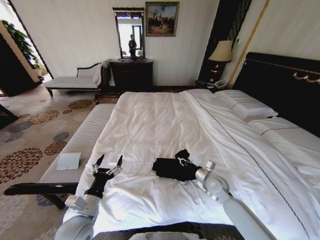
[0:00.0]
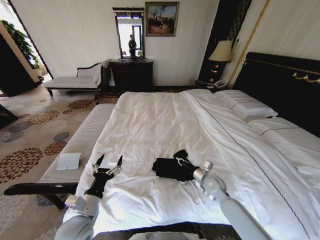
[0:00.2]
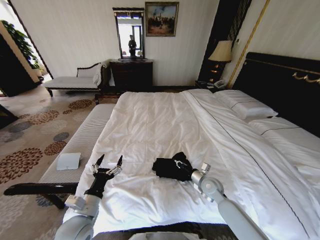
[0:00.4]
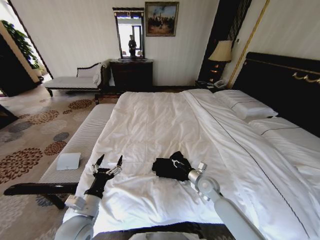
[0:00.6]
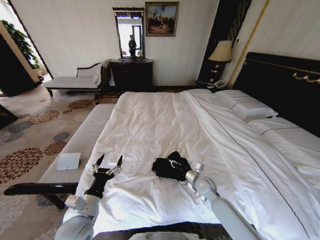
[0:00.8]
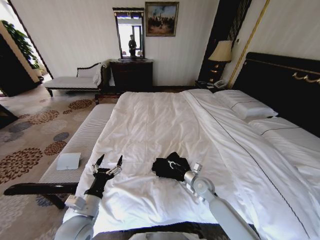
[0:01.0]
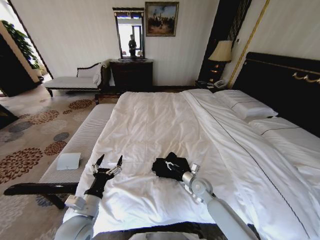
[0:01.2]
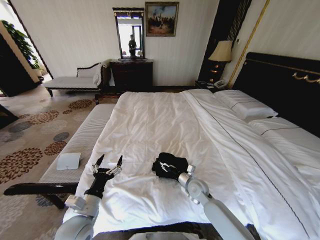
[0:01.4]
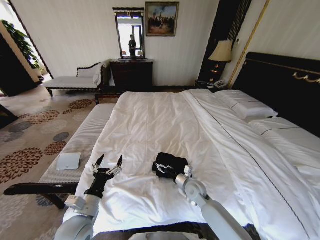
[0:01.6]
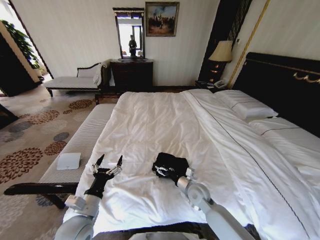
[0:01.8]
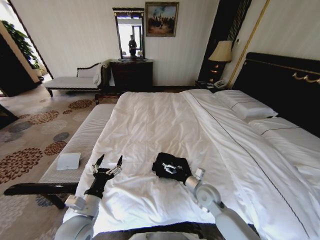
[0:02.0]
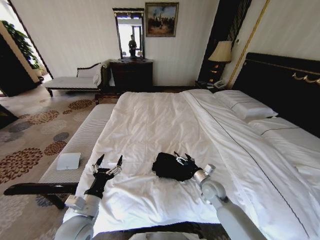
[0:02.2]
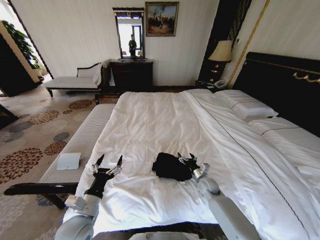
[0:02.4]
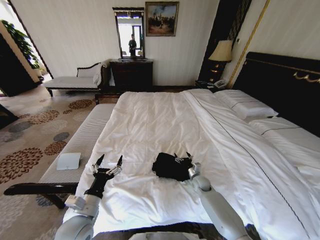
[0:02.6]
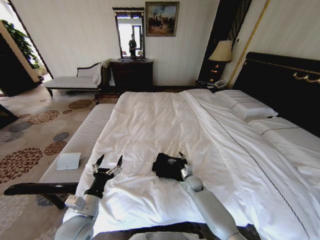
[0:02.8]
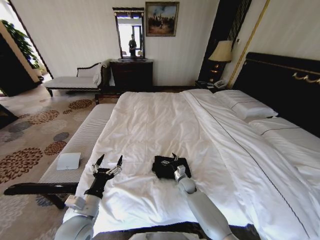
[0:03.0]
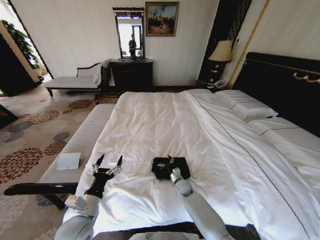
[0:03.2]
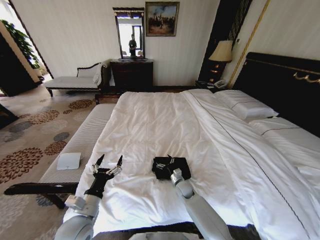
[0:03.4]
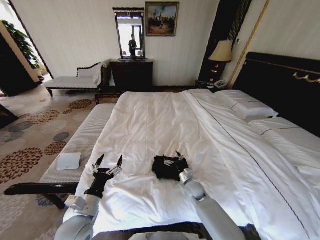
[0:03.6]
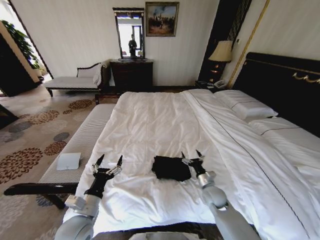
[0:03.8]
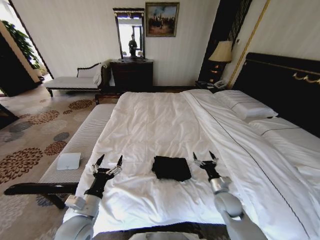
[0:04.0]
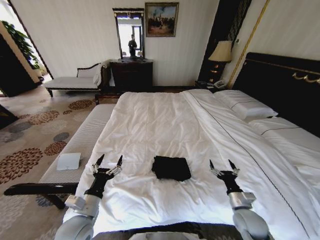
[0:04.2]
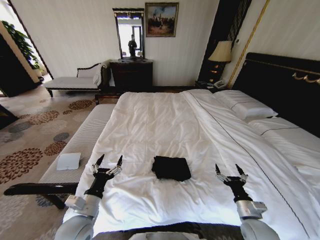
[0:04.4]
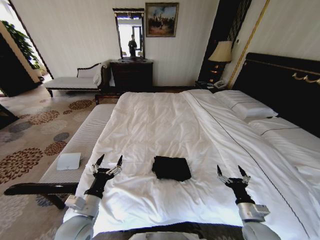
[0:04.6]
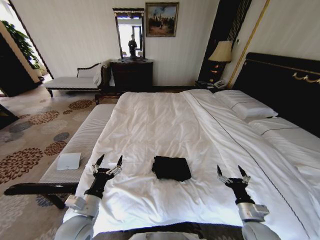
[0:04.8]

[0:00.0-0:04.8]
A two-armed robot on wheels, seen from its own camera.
Task of the whole recording: Fold the clothes on the bed.
0:00.0 to 0:01.6: The right gripper is displaced to the left by about 10 cm, and opens.
0:01.6 to 0:03.2: The right gripper shifts some 10 cm downward.
0:03.2 to 0:04.8: The right gripper travels backward, to the right and upward by roughly 30 cm.

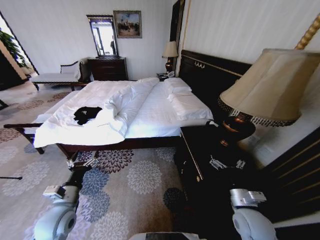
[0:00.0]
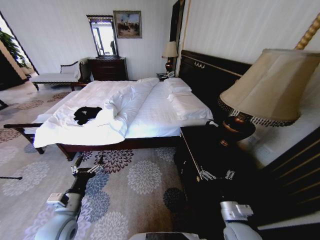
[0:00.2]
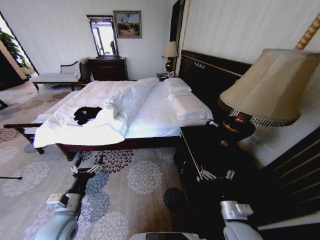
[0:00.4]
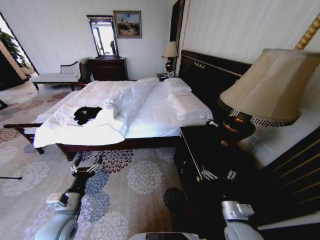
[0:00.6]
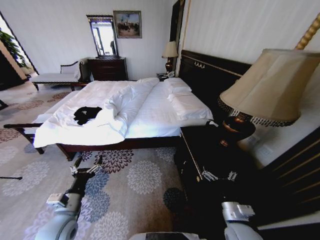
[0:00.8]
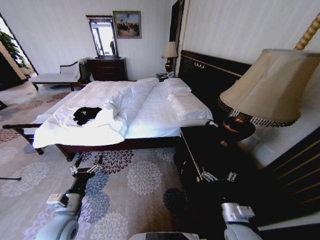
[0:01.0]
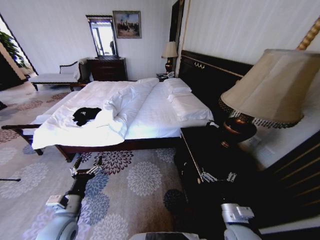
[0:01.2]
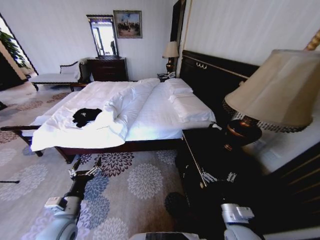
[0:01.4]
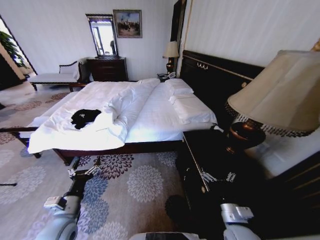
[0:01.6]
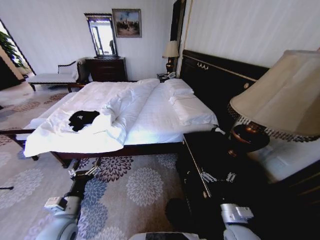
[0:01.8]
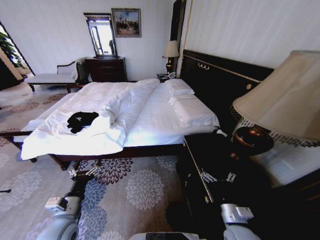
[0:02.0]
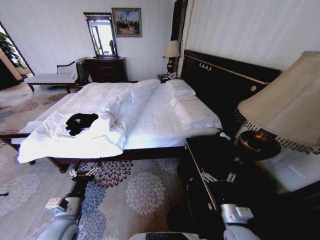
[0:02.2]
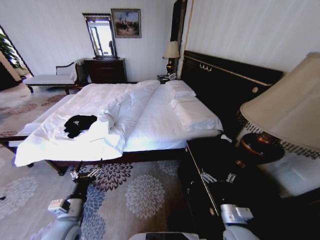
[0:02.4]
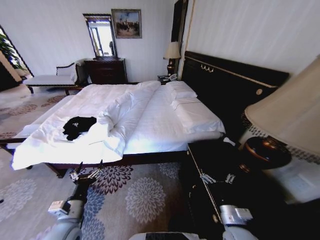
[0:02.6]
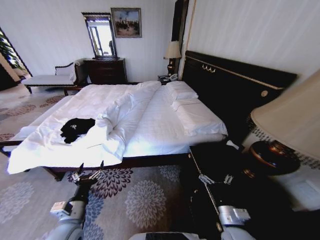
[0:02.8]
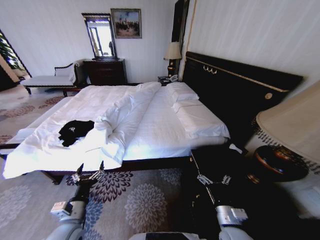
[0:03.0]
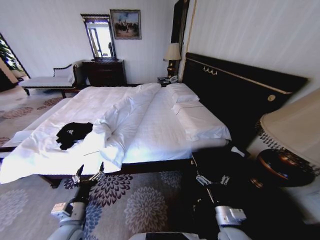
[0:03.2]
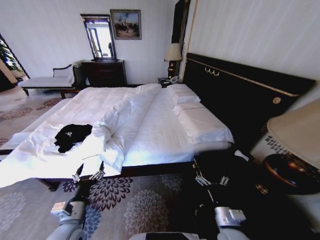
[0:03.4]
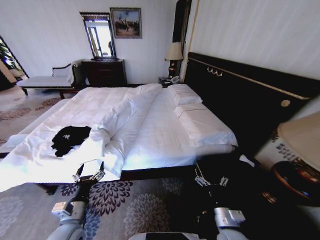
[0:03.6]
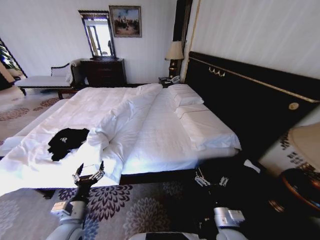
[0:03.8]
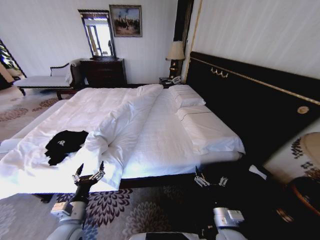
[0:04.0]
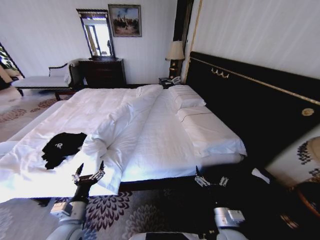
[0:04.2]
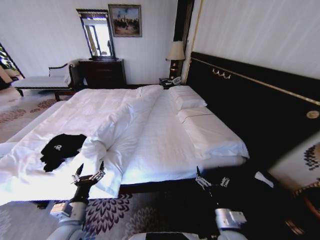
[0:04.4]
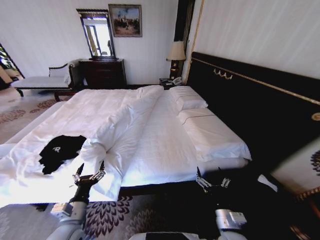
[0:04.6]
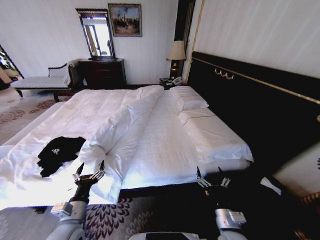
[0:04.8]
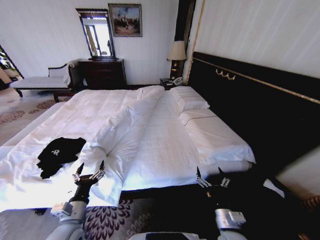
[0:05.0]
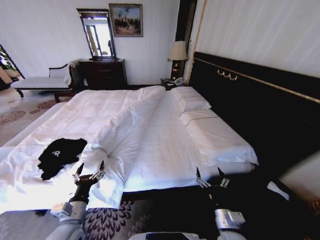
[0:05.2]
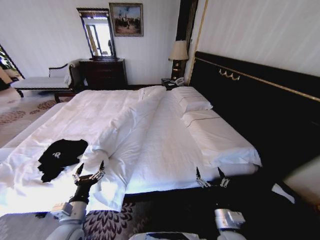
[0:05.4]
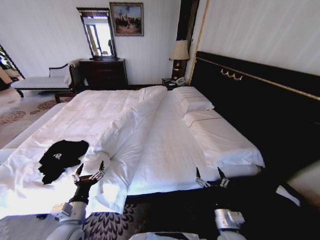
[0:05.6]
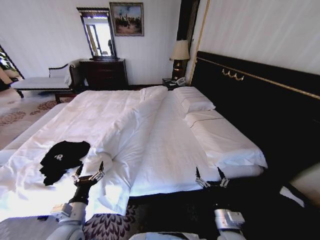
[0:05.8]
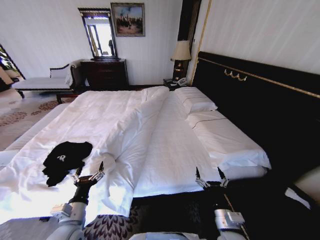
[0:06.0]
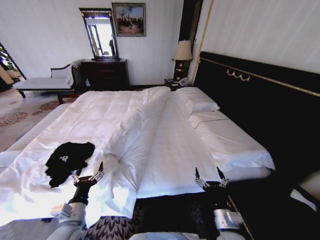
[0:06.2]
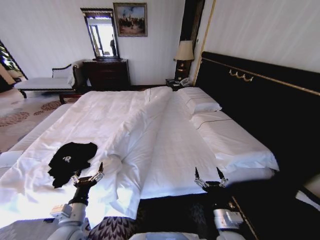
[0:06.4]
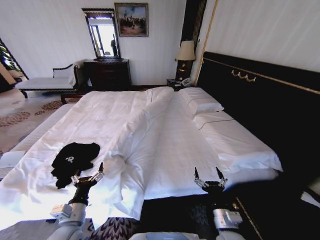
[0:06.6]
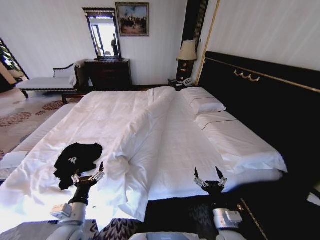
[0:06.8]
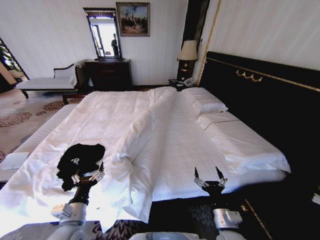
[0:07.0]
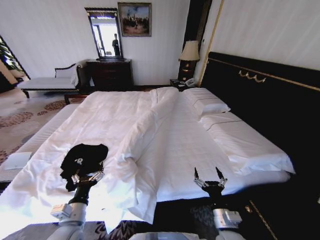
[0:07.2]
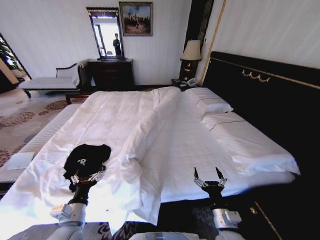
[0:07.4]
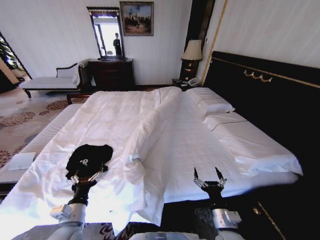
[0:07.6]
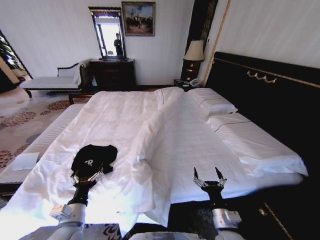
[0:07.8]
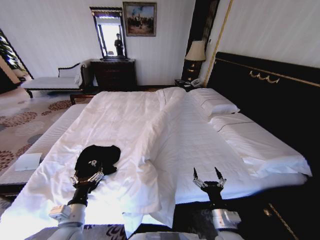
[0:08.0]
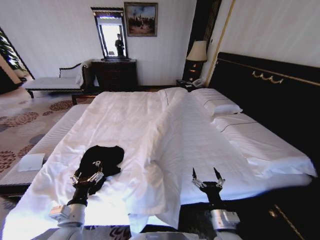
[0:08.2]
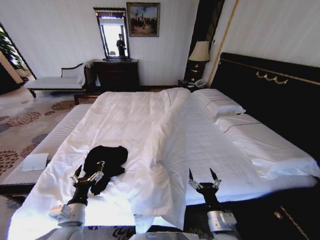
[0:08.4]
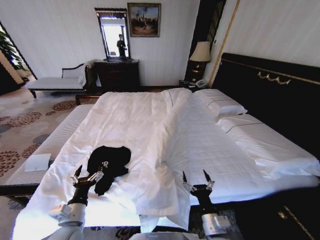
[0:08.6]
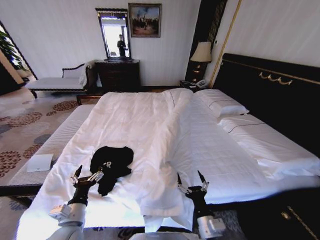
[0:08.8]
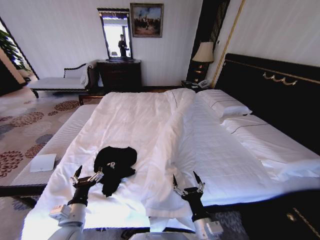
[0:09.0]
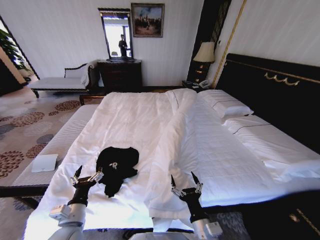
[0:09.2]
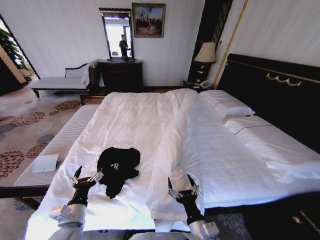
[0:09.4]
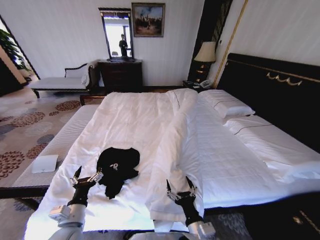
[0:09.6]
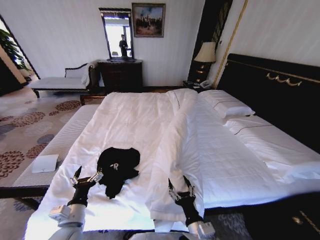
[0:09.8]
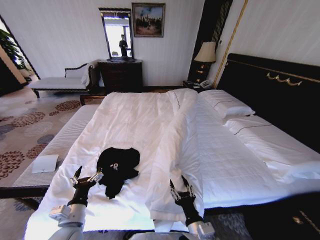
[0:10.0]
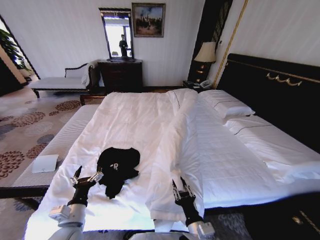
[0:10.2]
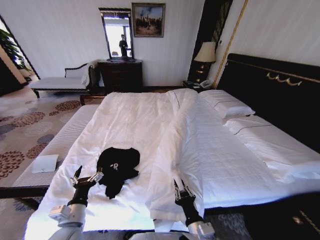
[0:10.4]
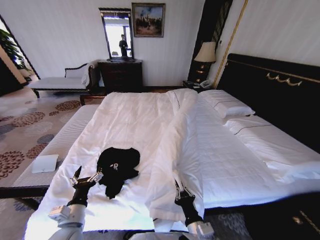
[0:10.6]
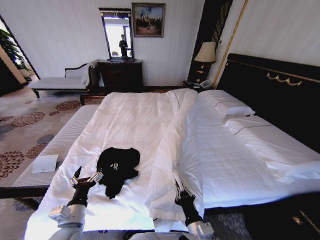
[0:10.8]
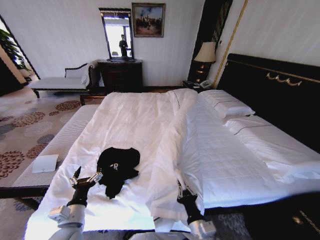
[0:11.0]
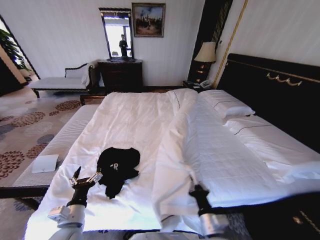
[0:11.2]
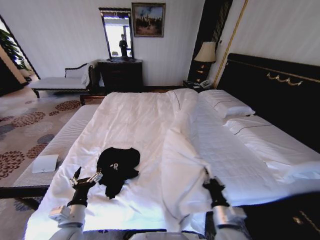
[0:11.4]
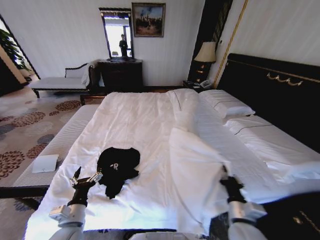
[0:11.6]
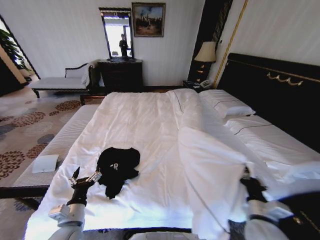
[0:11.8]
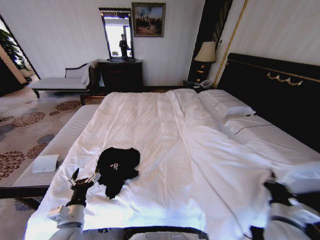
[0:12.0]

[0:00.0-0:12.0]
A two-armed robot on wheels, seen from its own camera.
Task of the whole recording: Fold the clothes on the bed.
0:07.6 to 0:09.0: The right gripper moves to the left, roughly 5 cm.
0:09.0 to 0:10.4: The right gripper closes up.
0:10.4 to 0:12.0: The right gripper travels to the right by approximately 25 cm.

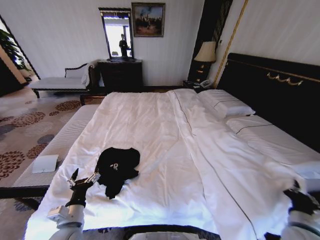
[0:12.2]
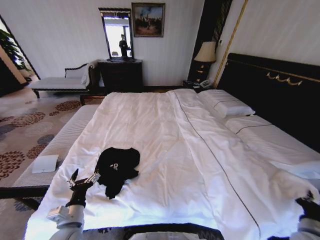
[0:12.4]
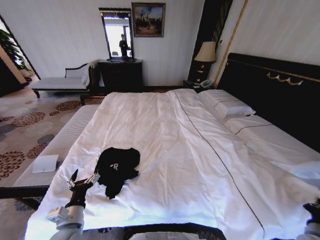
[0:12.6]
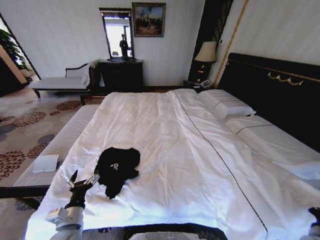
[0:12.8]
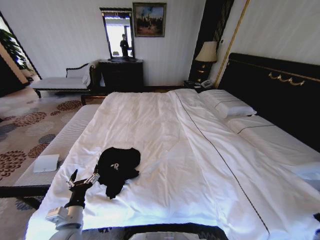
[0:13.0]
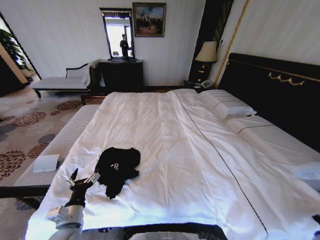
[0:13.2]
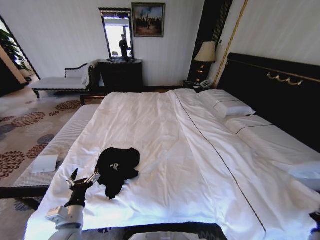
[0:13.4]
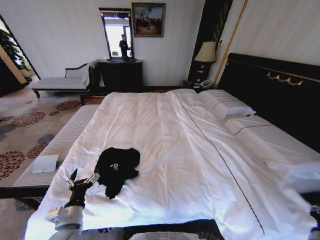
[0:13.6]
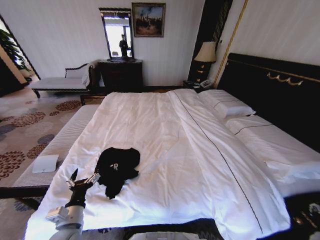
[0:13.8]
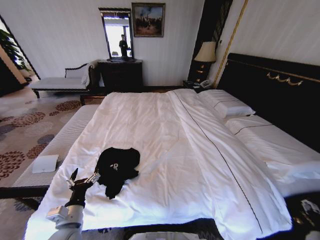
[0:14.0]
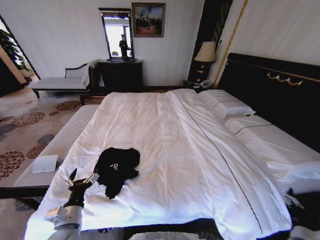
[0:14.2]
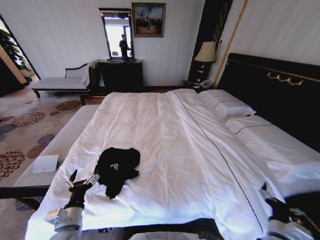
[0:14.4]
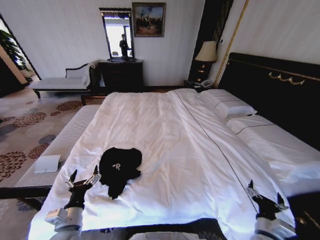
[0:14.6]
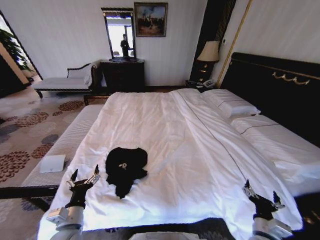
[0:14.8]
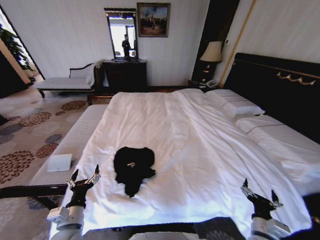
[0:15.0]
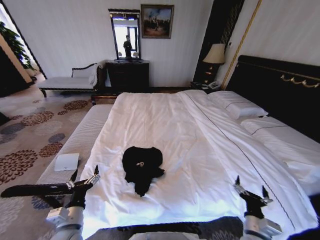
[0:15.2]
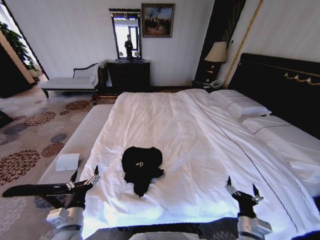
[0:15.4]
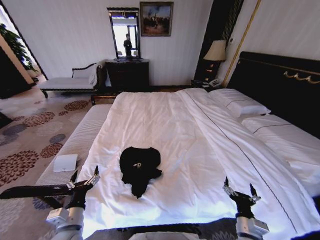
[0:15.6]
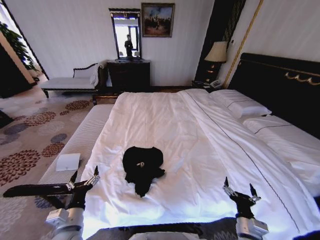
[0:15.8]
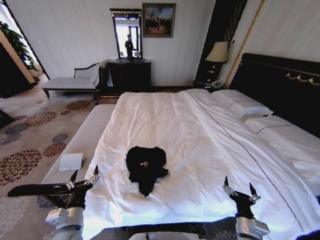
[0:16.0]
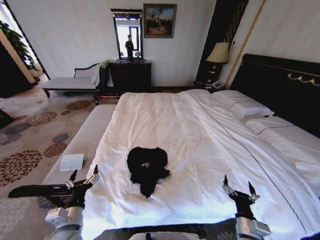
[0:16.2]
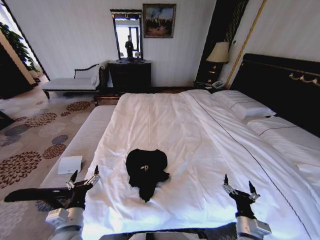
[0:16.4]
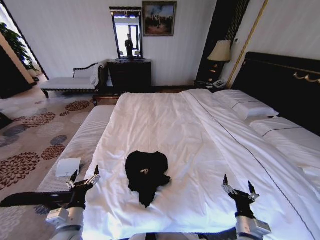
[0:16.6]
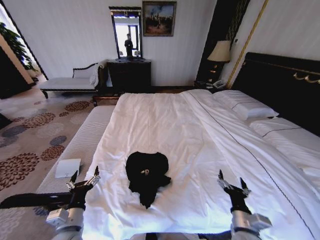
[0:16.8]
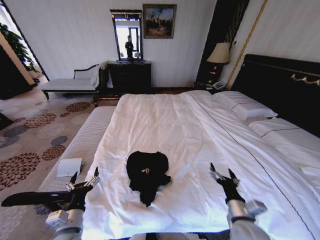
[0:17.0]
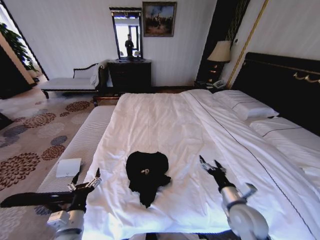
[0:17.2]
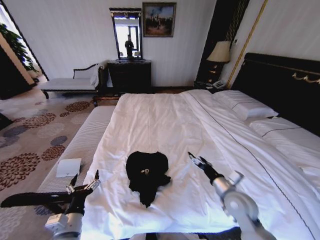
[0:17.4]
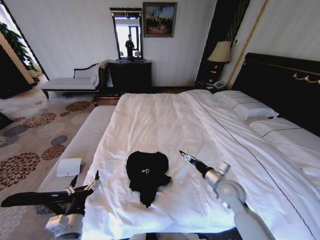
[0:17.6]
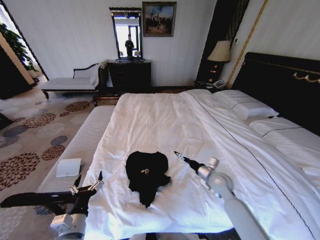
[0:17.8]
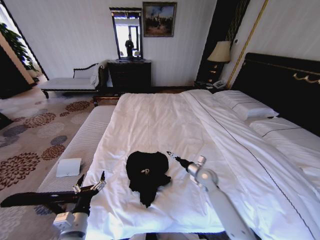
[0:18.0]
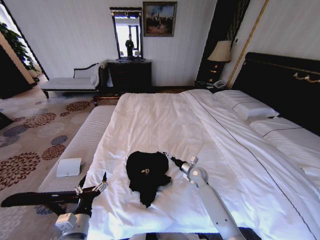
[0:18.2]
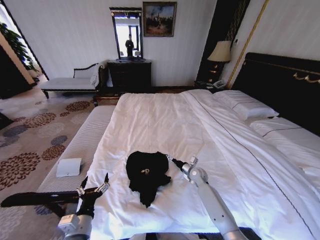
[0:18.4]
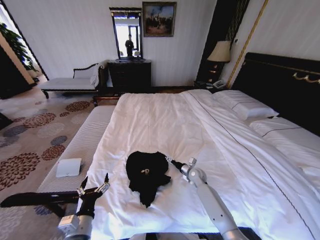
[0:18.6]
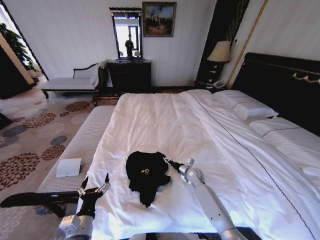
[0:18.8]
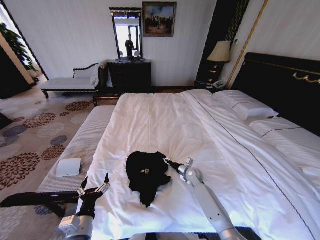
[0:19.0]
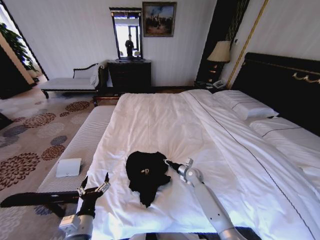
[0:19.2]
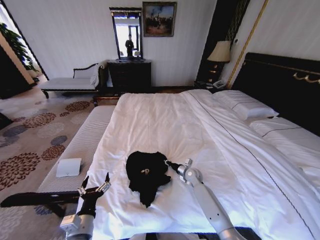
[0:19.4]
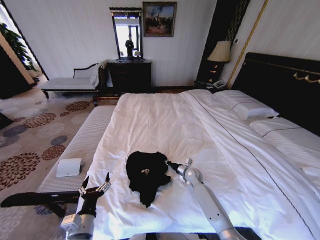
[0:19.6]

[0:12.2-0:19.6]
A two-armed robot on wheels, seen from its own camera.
Task of the whole recording: Fold the clothes on the bed.
0:12.2 to 0:13.6: The right gripper shifts approximately 10 cm to the right and downward, and opens.
0:13.6 to 0:15.2: The right gripper is displaced to the left by about 20 cm, and opens its fingers.
0:16.6 to 0:18.2: The right gripper goes roughly 30 cm forward.
0:18.2 to 0:19.6: The right gripper closes.
